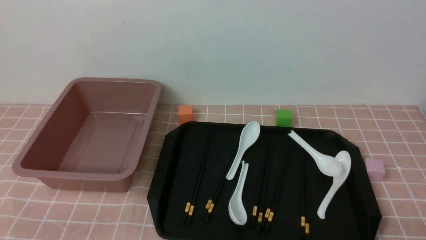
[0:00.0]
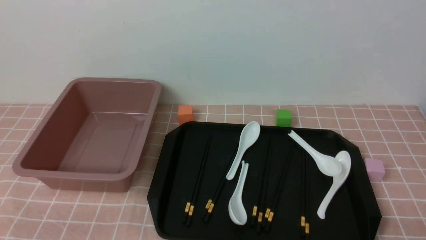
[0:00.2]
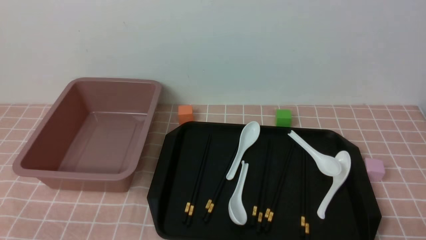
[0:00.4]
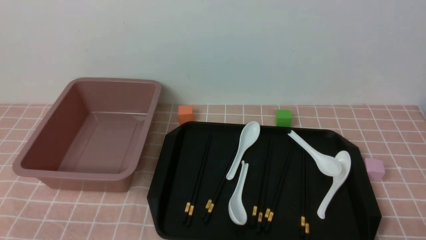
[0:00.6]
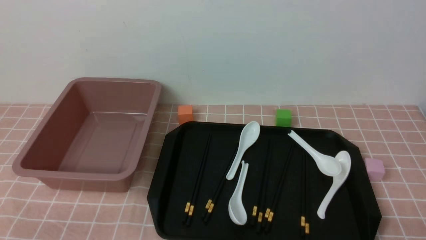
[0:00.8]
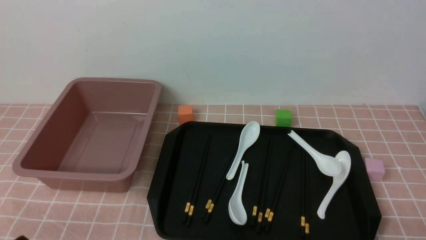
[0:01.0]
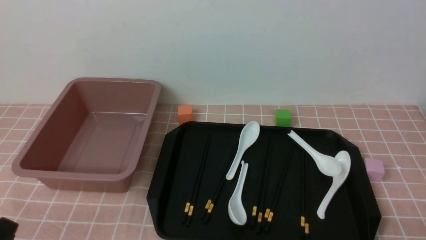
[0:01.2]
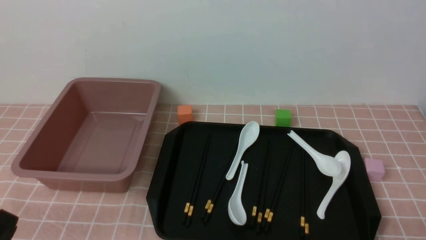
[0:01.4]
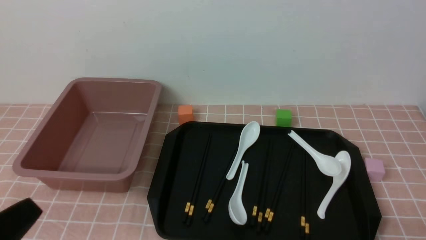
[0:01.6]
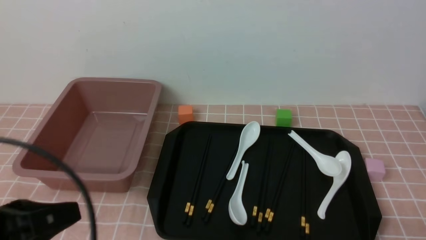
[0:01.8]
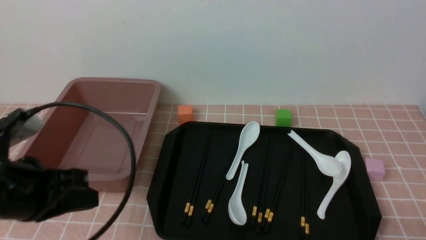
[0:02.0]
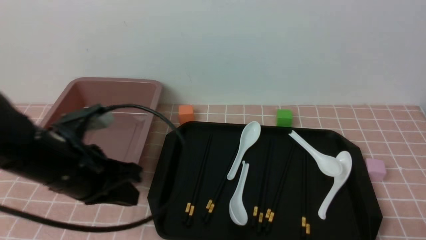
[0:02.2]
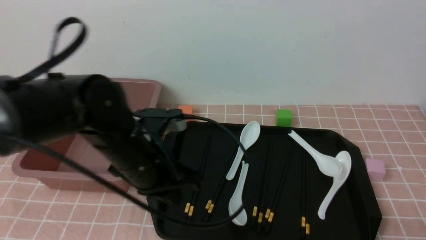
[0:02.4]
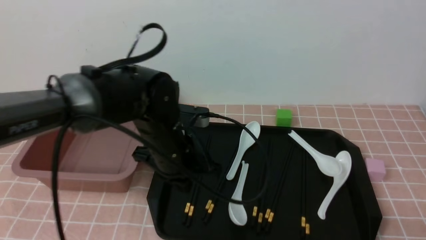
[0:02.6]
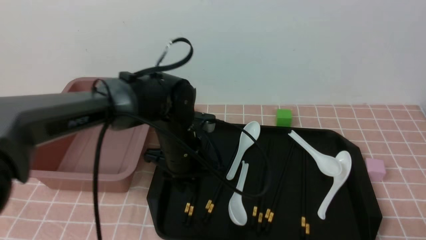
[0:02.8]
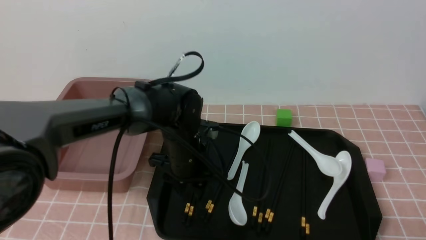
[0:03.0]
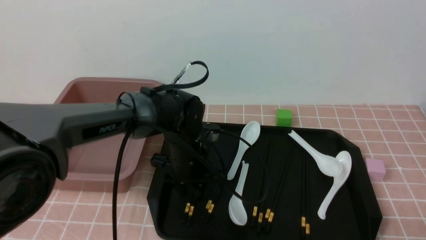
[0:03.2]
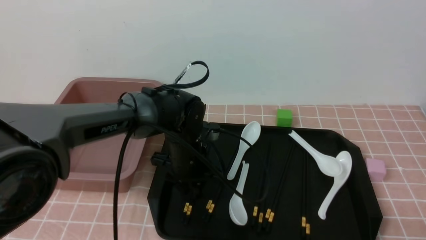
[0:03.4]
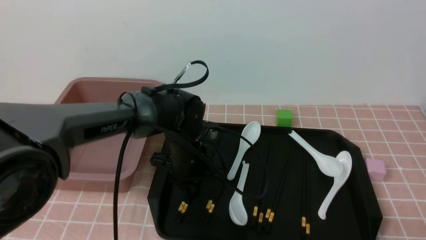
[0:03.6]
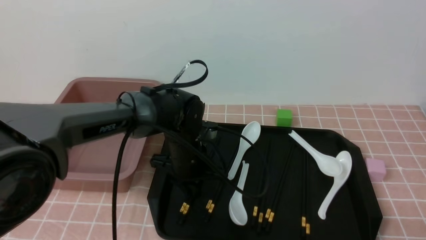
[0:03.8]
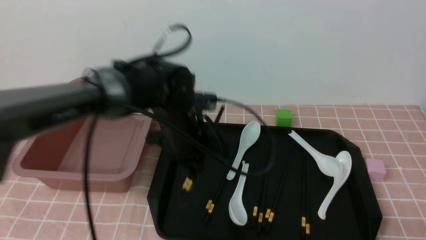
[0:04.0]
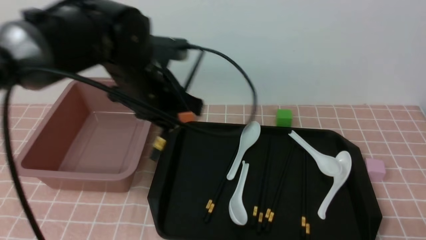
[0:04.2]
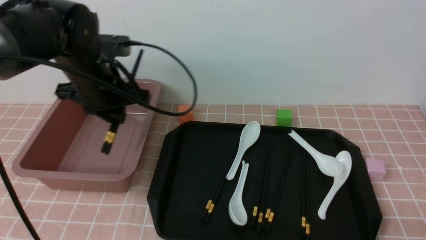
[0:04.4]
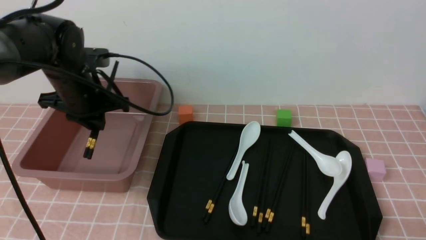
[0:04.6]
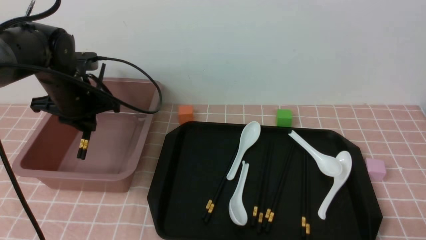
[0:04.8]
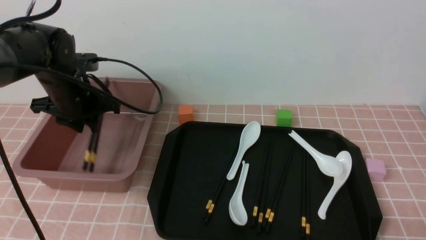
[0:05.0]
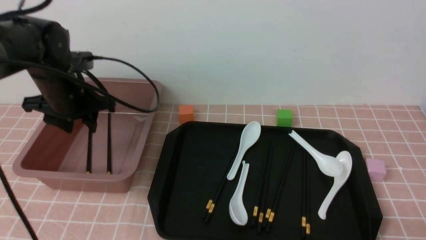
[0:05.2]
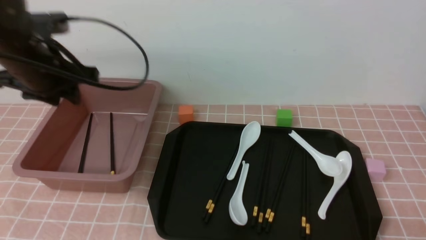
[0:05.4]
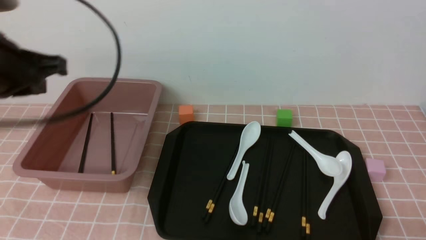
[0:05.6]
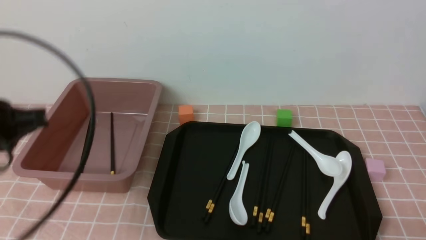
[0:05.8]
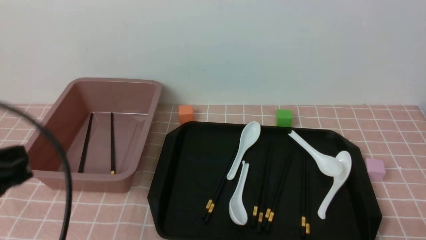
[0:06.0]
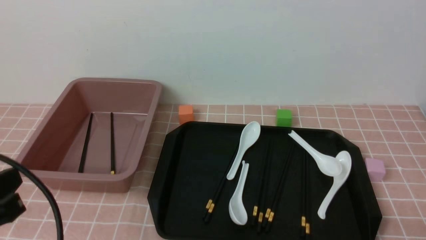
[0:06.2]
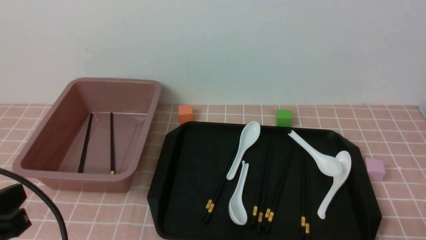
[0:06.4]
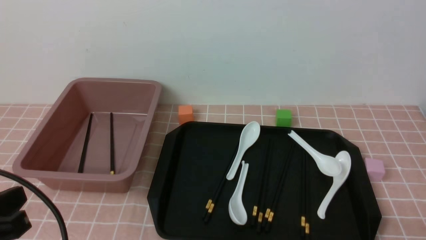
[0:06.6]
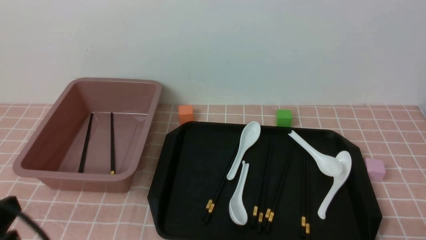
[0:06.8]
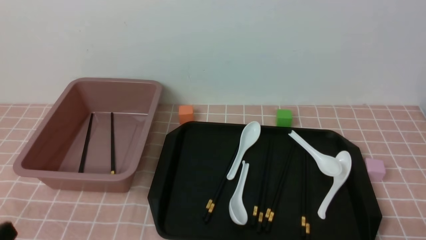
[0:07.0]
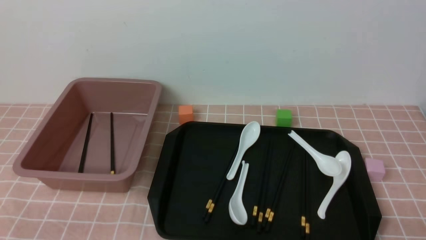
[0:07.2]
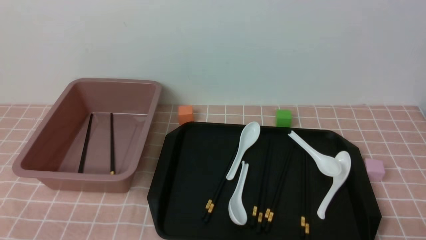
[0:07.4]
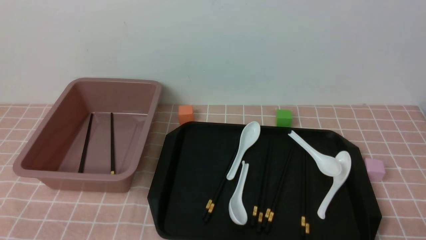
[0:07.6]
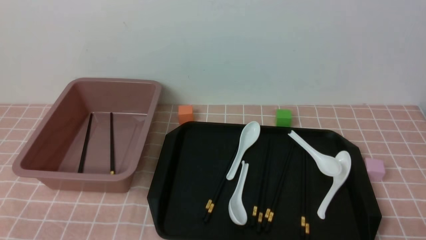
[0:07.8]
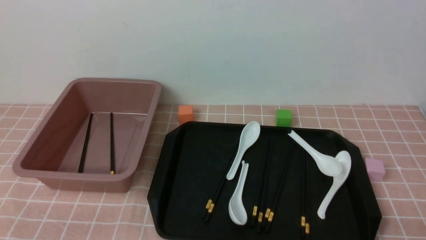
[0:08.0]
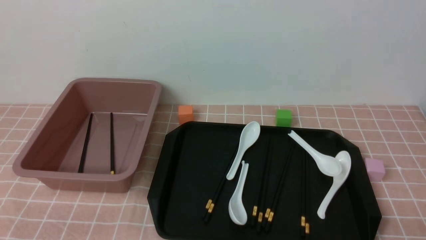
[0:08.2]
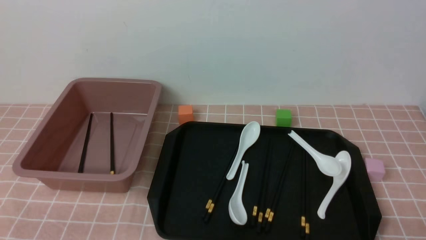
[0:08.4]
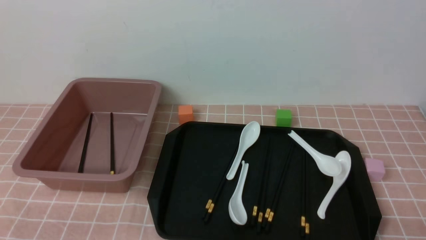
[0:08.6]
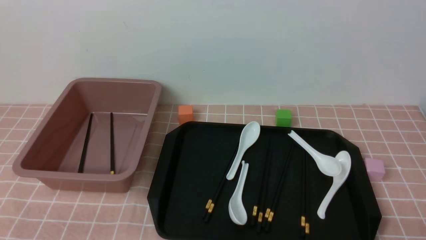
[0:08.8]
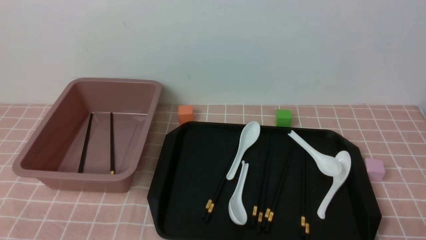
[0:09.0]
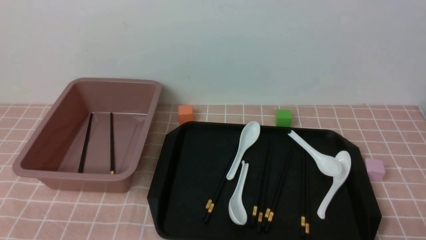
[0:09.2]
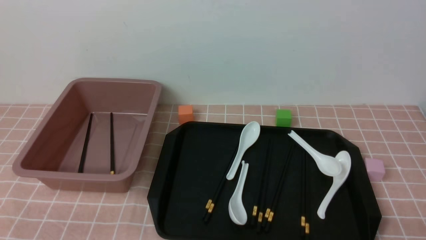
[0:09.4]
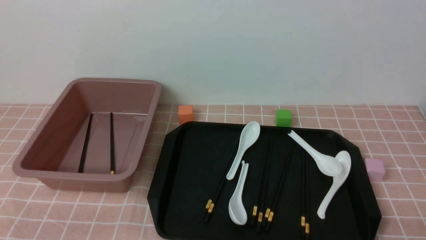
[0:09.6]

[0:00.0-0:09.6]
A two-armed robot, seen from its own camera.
Step, 0.0 to 3.8 s: use the left arm to grab a pair of chopsticks.
Step, 4.0 to 5.2 s: use the left arm to put the chopsticks into the lunch box.
0.0 to 1.6 s: The left gripper shifts some 10 cm upward, and closes its fingers.
1.6 to 3.2 s: The left gripper shifts approximately 35 cm forward and to the right, and opens.
3.2 to 4.8 s: The left gripper goes some 20 cm to the left and upward, and closes its fingers.
4.8 to 6.4 s: The left gripper is displaced backward by roughly 30 cm, and closes its fingers.
6.4 to 8.0 s: The left gripper shifts approximately 10 cm downward and backward.
8.0 to 9.6 s: Both grippers stay about where they are.

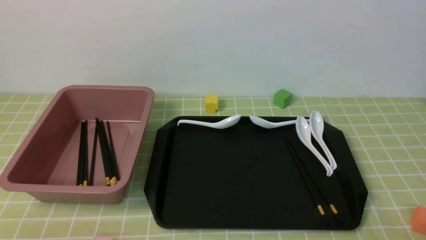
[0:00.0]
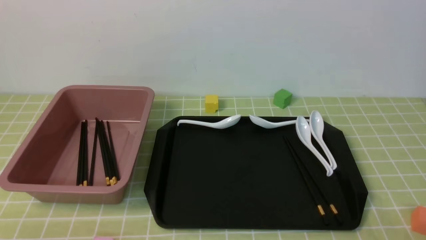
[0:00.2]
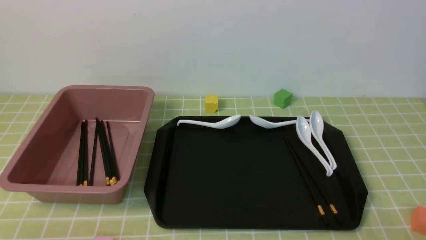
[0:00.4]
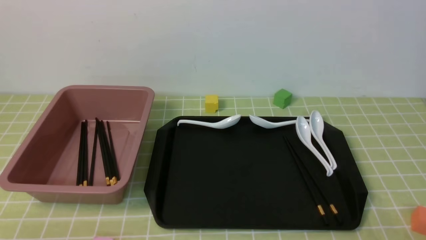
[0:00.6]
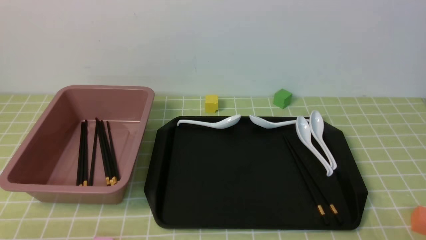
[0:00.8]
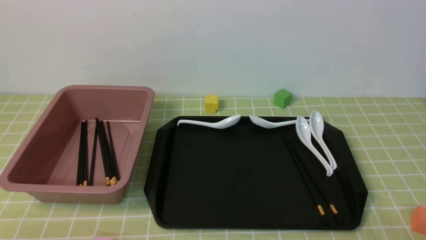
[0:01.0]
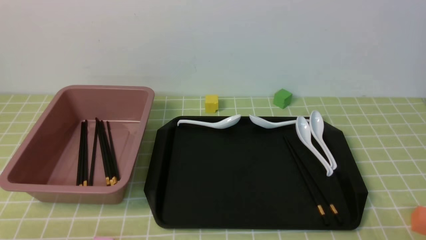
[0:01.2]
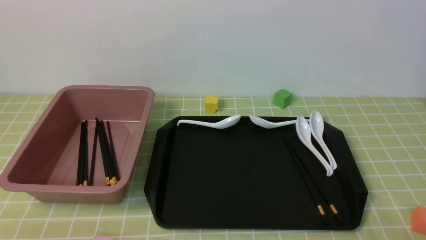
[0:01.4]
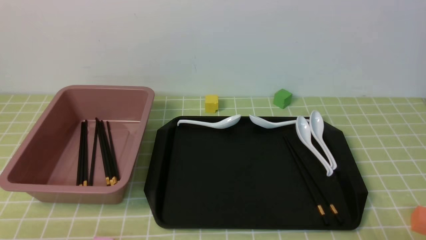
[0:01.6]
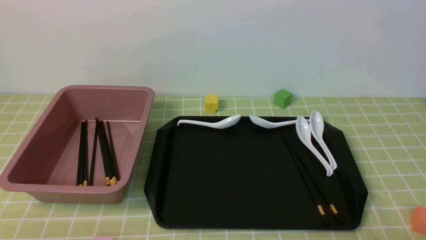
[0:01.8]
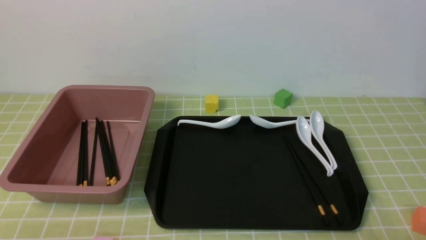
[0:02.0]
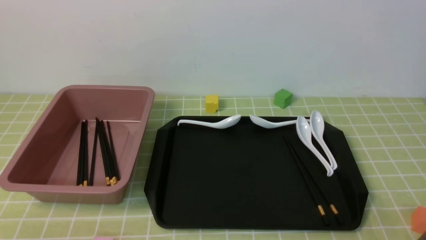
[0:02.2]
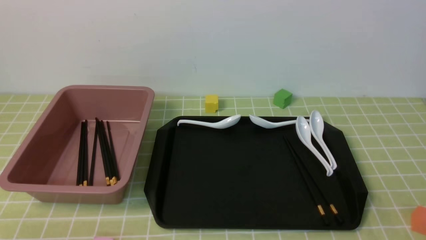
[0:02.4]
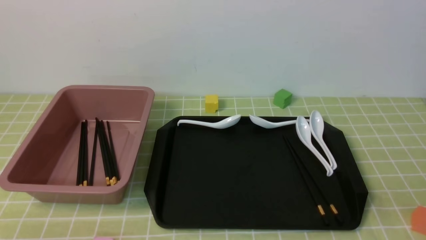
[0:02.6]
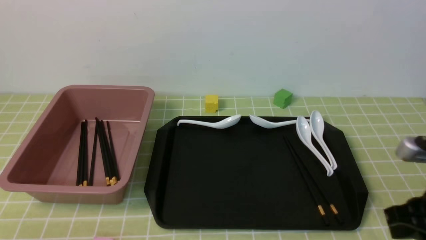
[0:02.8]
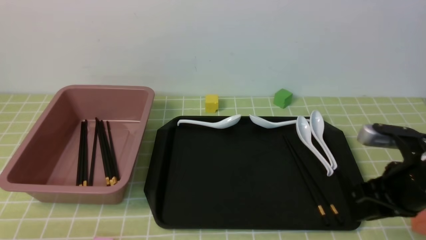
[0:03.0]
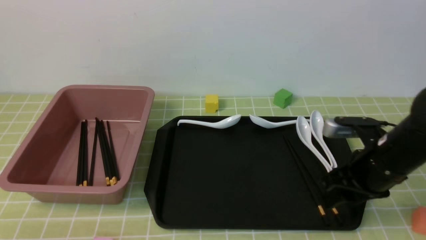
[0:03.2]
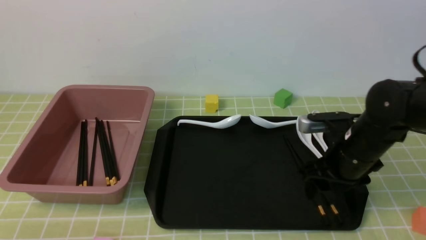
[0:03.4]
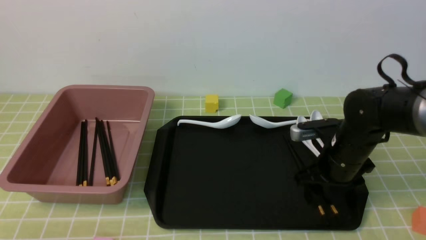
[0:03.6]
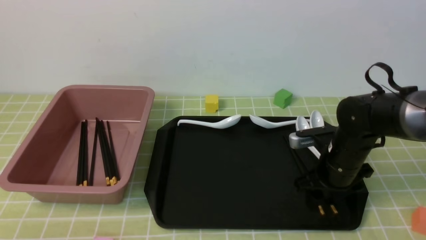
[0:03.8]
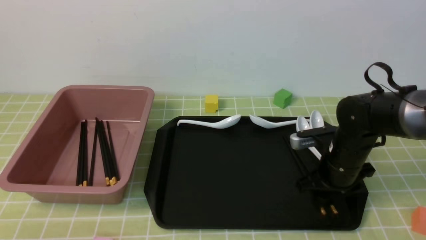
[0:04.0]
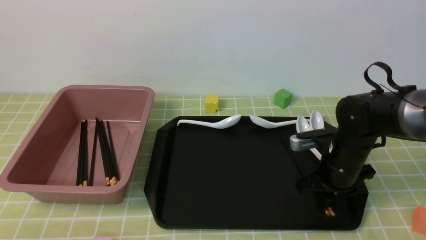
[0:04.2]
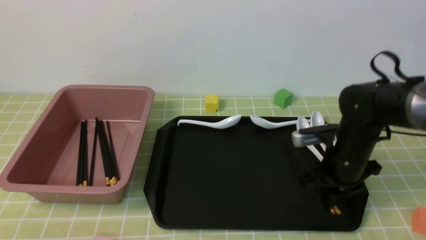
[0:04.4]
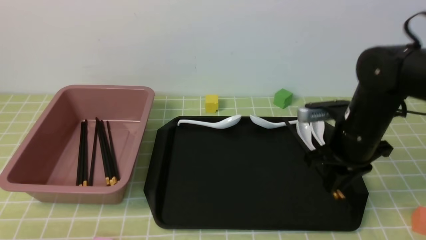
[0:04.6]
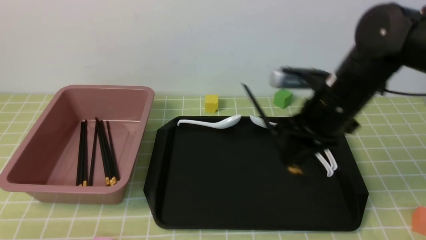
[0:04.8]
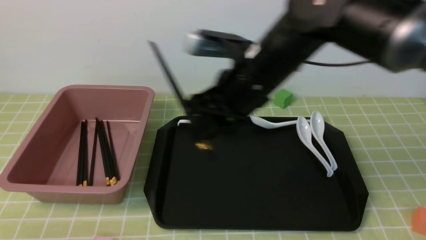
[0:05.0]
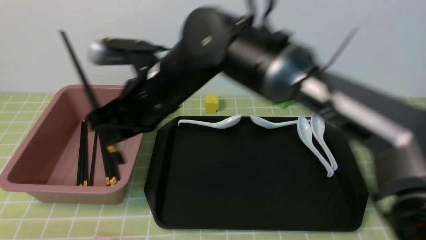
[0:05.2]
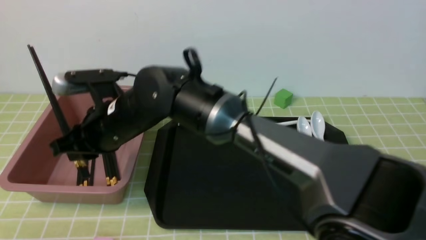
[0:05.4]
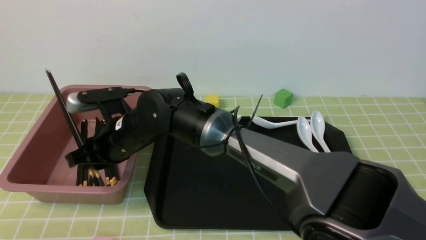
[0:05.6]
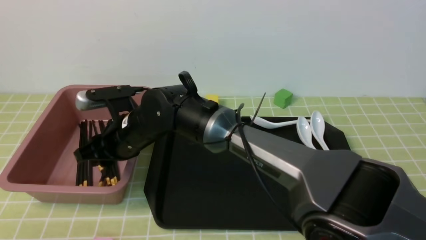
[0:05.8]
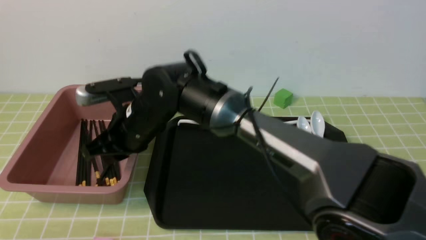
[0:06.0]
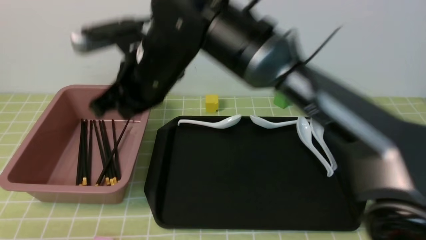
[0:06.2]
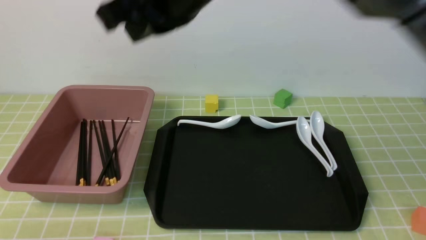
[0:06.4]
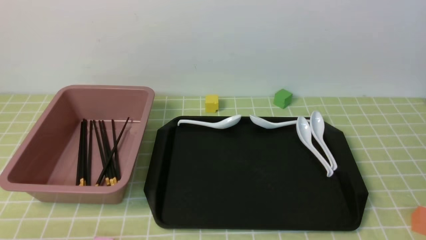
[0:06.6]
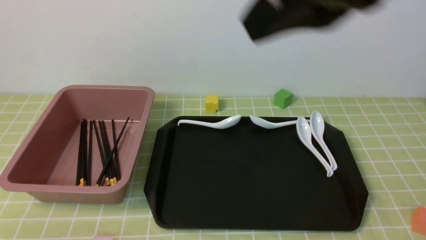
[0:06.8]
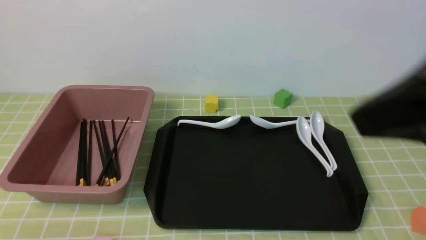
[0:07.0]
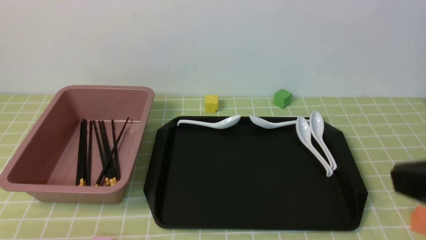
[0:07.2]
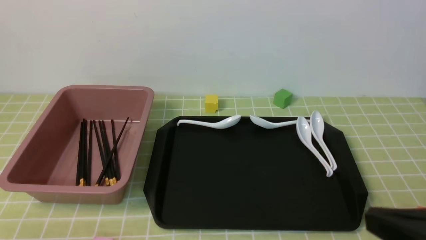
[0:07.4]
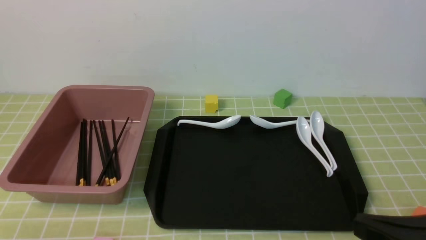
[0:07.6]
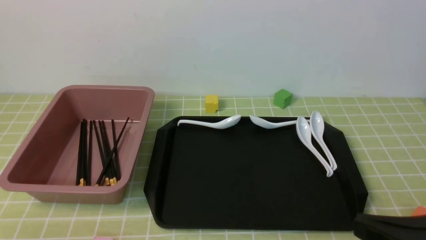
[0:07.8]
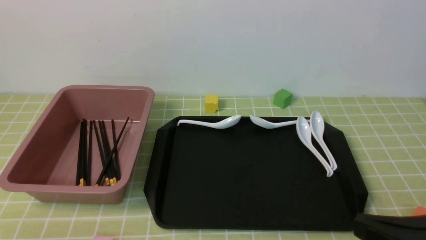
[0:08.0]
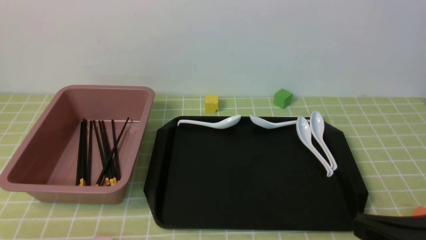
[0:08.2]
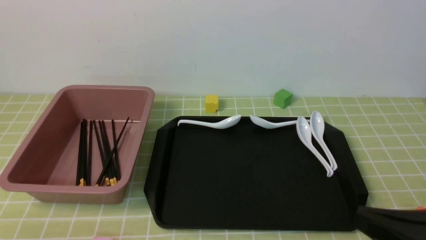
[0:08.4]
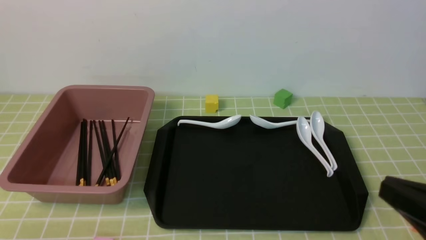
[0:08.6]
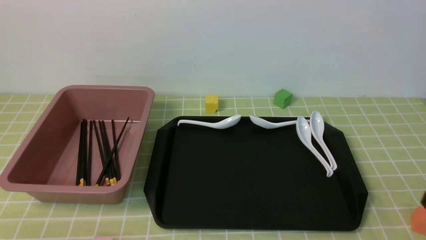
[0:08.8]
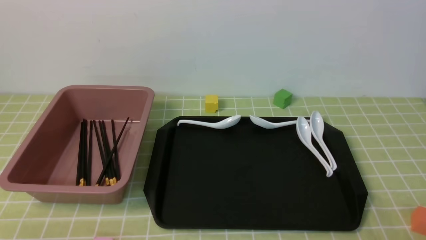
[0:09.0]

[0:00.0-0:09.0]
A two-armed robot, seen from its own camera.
Step, 0.0 to 4.6 s: use the right arm to grab a pair of chopsticks.
Step, 4.8 to 6.0 s: use the right arm to put the chopsticks into the lunch box.
1.6 to 3.0 s: The right gripper is displaced forward by about 20 cm, and closes, then reopens.
3.0 to 4.4 s: The right gripper moves forward and to the left, about 10 cm, and opens, then closes again.
4.4 to 6.0 s: The right gripper heads to the left, covering approximately 30 cm.
6.0 to 7.6 s: The right gripper shifts about 40 cm to the right and backward.
7.6 to 9.0 s: The right gripper is displaced downward and to the right by about 10 cm.
